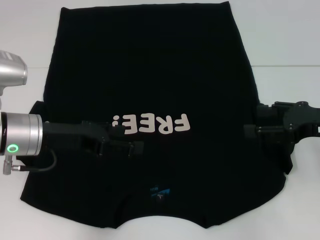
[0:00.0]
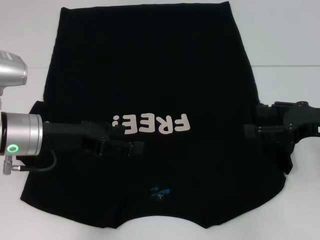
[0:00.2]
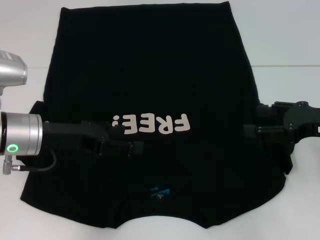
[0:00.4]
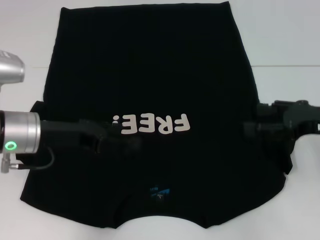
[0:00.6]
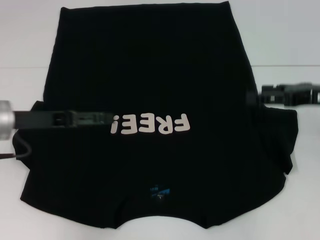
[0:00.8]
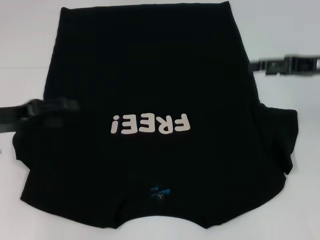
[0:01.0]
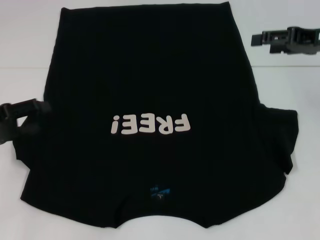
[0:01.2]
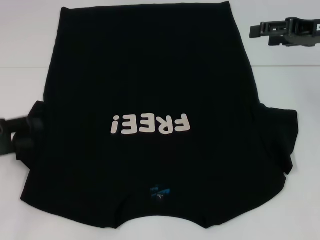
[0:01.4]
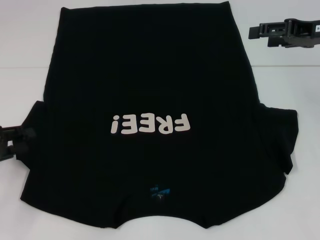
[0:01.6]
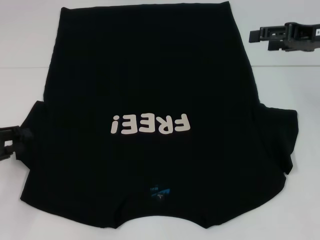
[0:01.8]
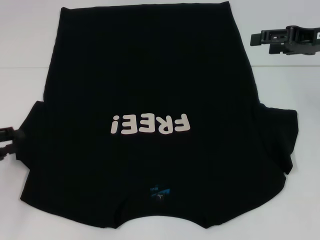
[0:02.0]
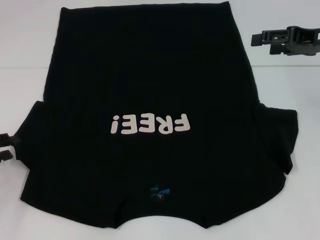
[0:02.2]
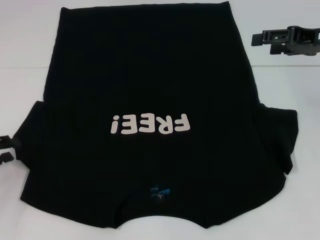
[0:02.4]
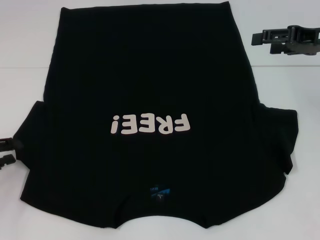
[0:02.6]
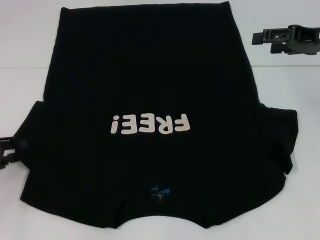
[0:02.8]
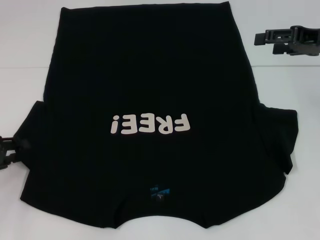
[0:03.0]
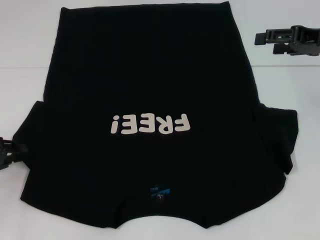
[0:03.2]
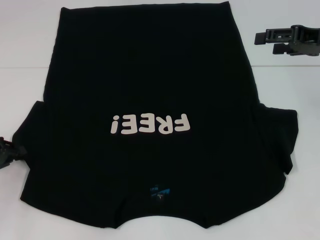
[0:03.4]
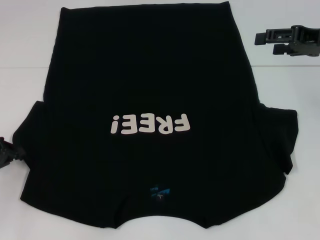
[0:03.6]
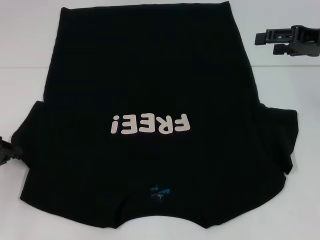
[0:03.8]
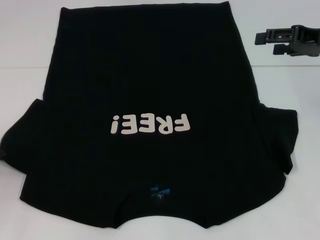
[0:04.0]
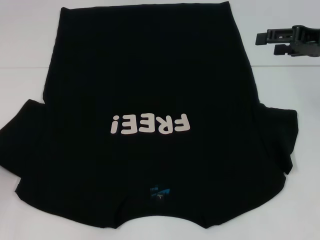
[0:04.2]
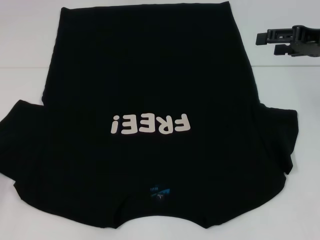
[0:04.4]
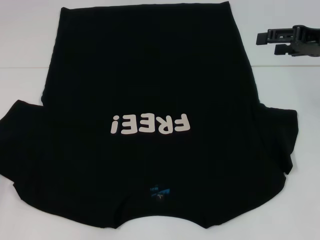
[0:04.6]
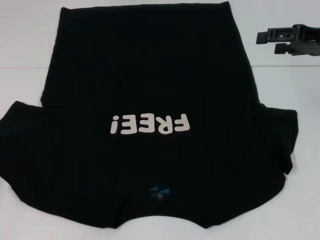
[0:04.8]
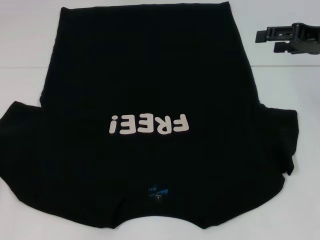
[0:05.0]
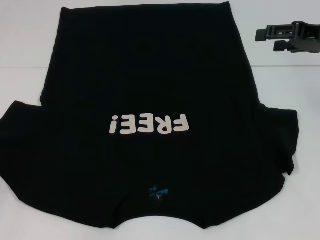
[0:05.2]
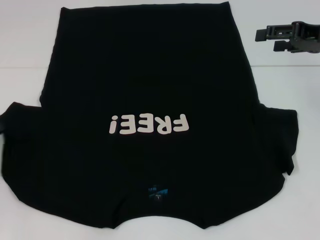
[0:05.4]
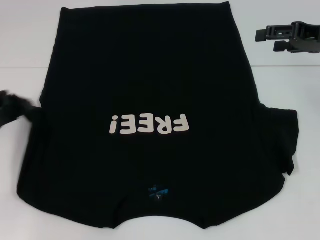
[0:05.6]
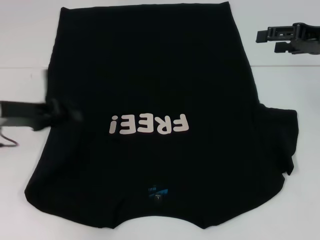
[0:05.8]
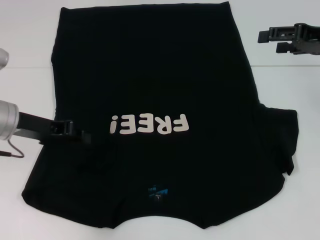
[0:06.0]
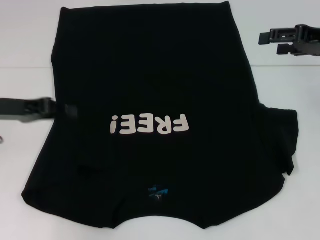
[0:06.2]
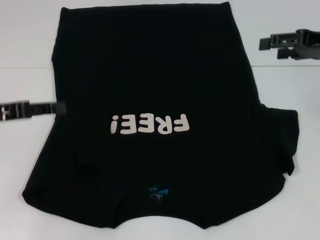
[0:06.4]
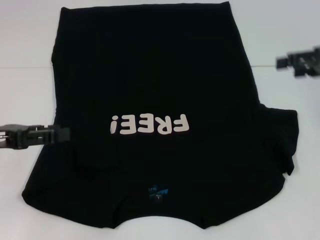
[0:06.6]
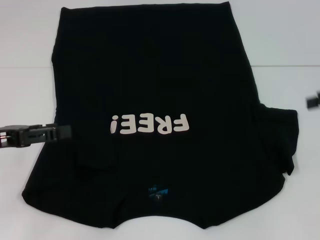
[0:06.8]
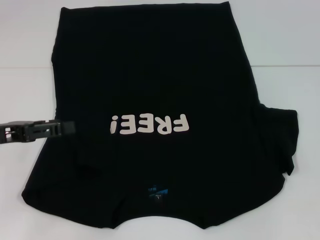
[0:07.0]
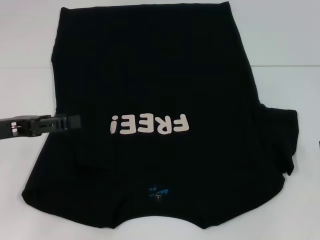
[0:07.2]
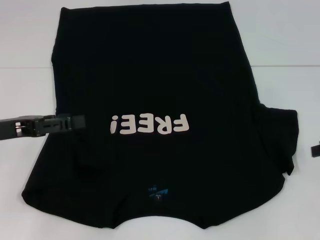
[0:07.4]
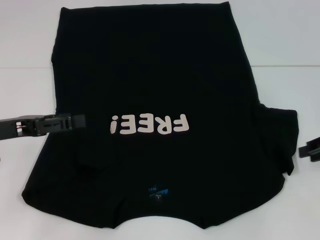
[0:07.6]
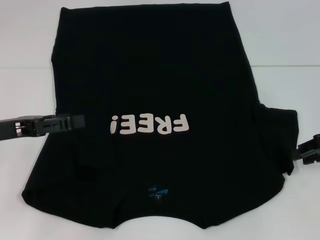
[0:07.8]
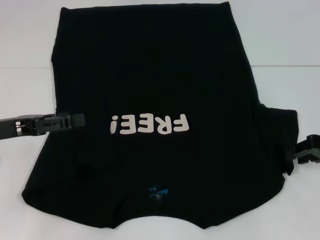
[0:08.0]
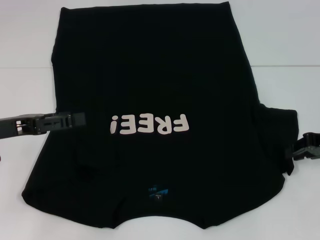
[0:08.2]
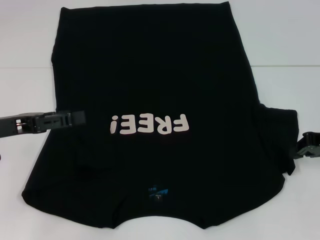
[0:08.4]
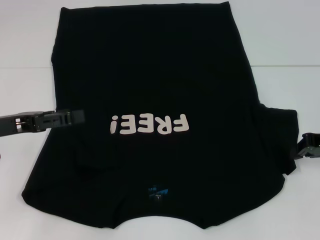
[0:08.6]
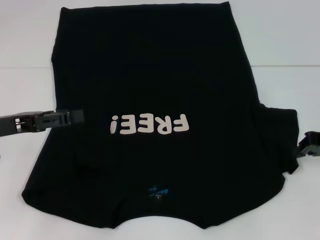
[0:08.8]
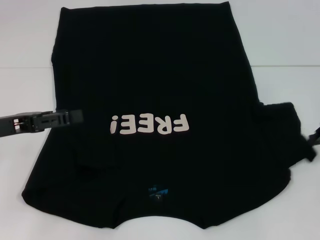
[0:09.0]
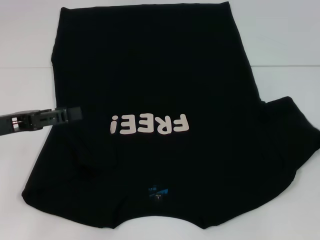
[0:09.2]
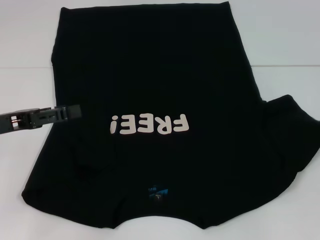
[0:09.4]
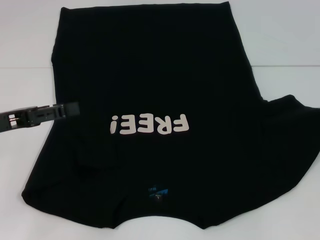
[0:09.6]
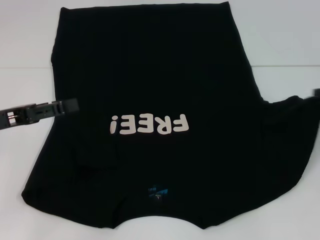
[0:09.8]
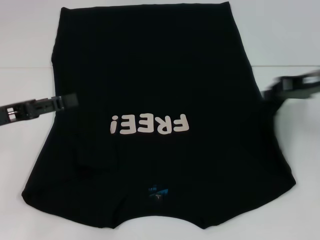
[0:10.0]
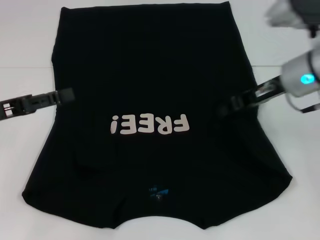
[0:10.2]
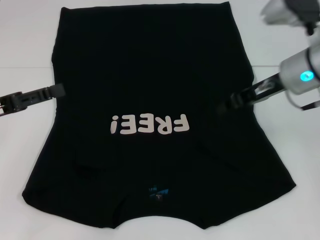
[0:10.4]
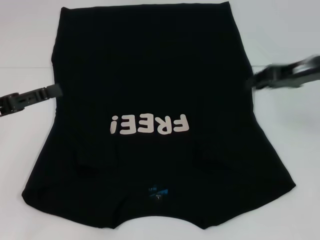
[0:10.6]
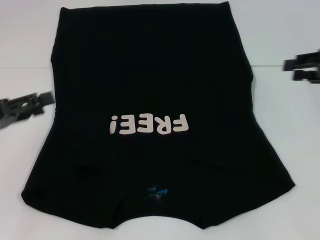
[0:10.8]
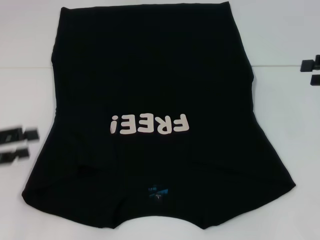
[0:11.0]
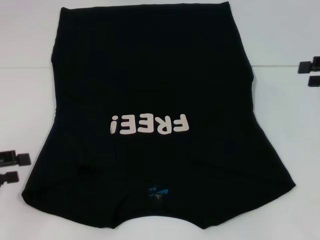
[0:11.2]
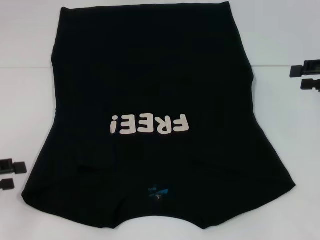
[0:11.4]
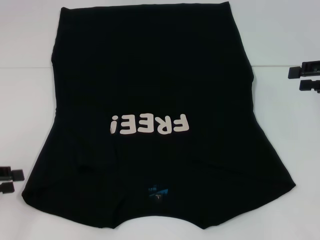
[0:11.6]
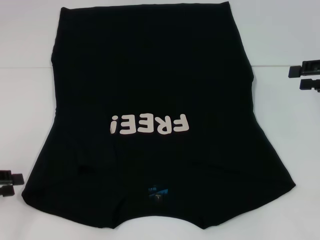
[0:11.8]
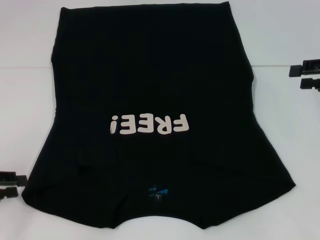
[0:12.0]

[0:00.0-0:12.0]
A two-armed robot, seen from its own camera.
Step, 0:00.0 to 0:06.4: Fold the bottom left sleeve with your left hand.
Step, 0:06.6 to 0:10.2: Fold the bottom right sleeve with your right hand.
0:00.0 to 0:01.6: The left gripper heads to the left, covering approximately 15 cm; the right gripper heads forward and upward, covering some 15 cm.
0:01.6 to 0:03.0: There are only small adjustments of the grippers.
0:03.0 to 0:04.4: The left gripper closes up.
0:04.4 to 0:06.0: The left gripper goes about 15 cm to the right, forward and upward.
0:06.0 to 0:07.6: The right gripper moves downward and backward, some 10 cm, and closes, while the left gripper shifts roughly 5 cm backward, and opens.
0:07.6 to 0:09.0: The right gripper closes up.
0:09.0 to 0:10.4: The right gripper moves to the left, roughly 15 cm.
0:10.4 to 0:12.0: The right gripper is displaced to the right by about 15 cm, and opens. The left gripper goes roughly 5 cm downward, and closes up.

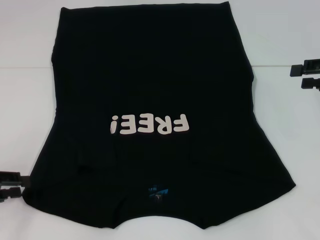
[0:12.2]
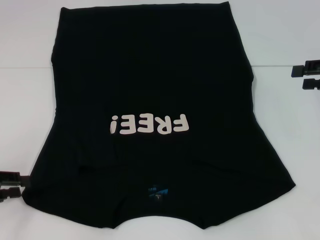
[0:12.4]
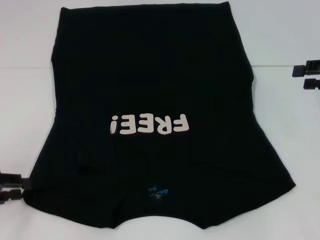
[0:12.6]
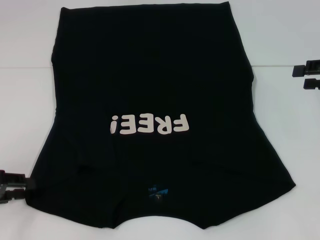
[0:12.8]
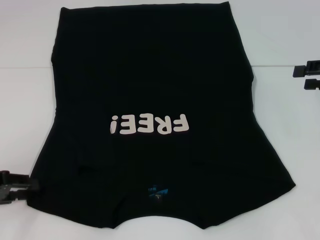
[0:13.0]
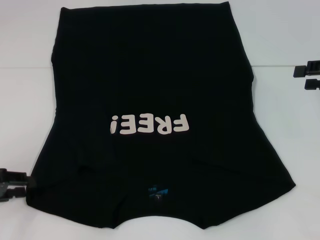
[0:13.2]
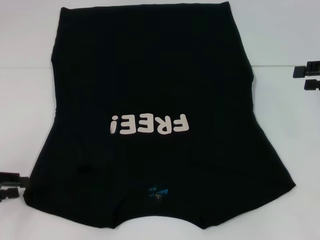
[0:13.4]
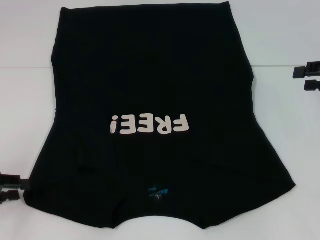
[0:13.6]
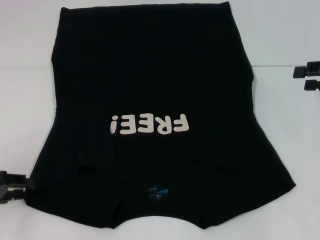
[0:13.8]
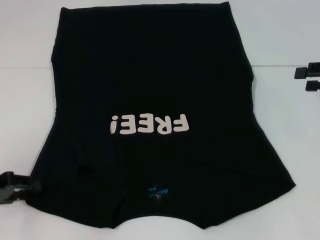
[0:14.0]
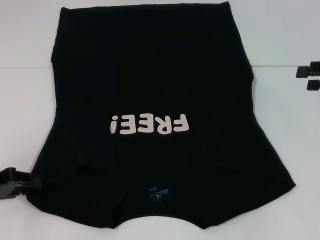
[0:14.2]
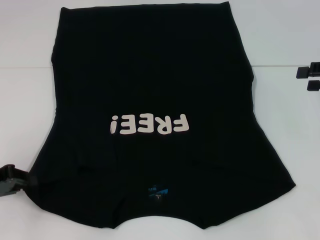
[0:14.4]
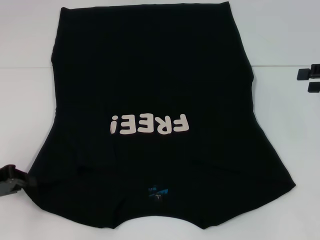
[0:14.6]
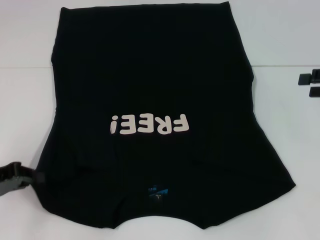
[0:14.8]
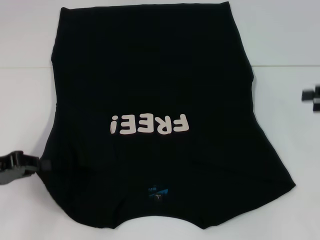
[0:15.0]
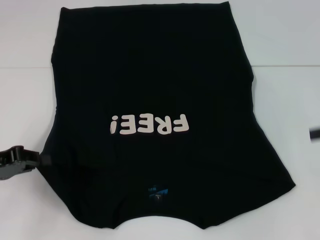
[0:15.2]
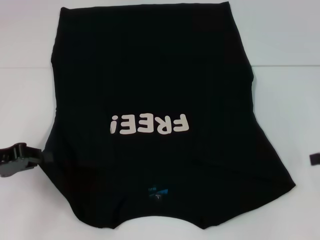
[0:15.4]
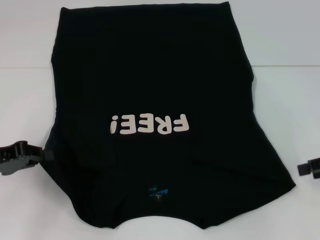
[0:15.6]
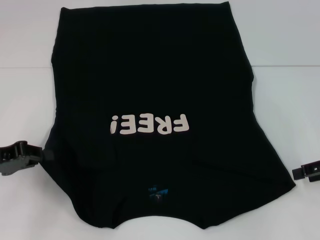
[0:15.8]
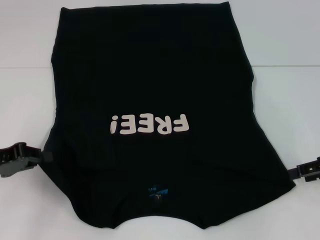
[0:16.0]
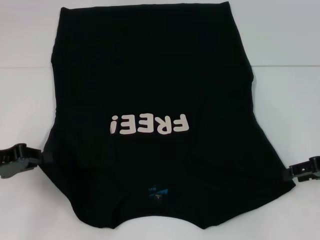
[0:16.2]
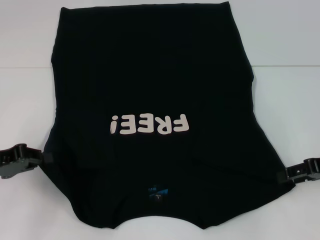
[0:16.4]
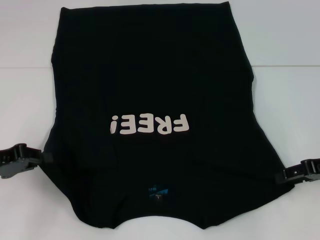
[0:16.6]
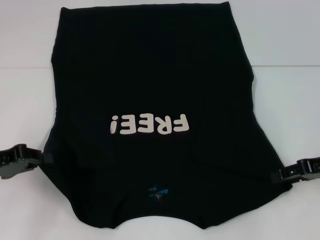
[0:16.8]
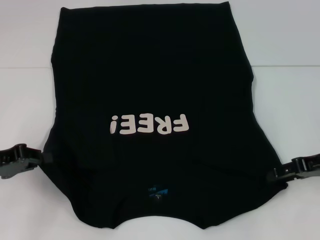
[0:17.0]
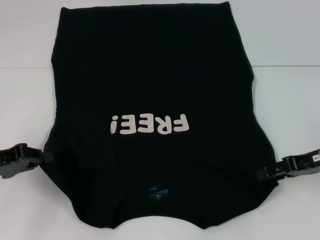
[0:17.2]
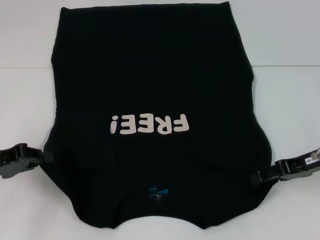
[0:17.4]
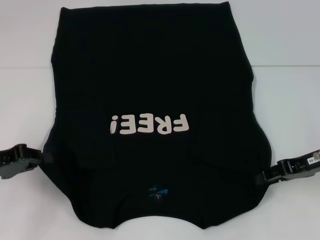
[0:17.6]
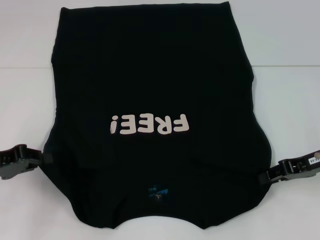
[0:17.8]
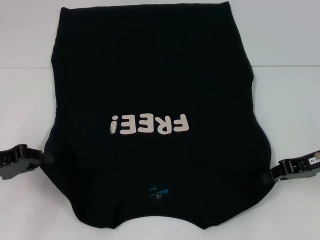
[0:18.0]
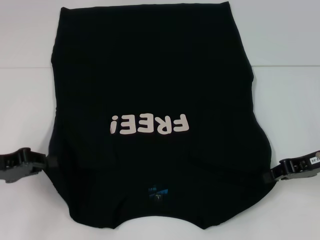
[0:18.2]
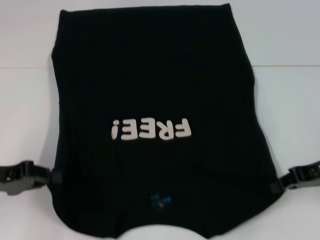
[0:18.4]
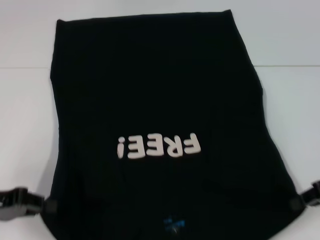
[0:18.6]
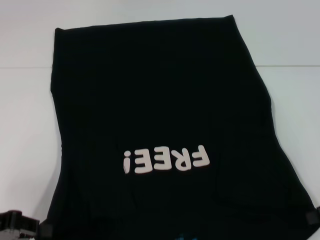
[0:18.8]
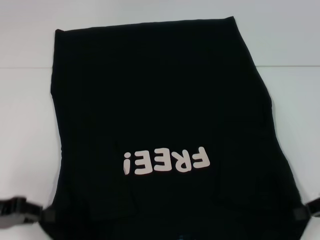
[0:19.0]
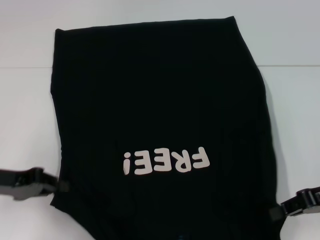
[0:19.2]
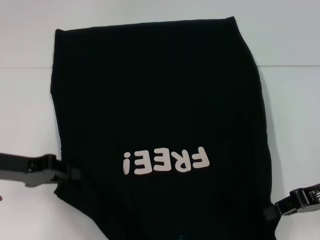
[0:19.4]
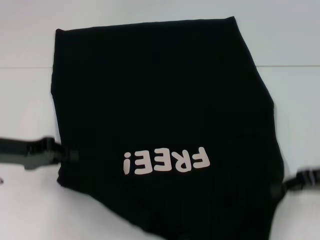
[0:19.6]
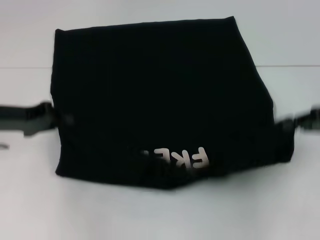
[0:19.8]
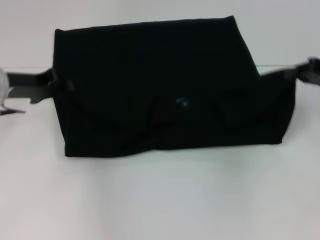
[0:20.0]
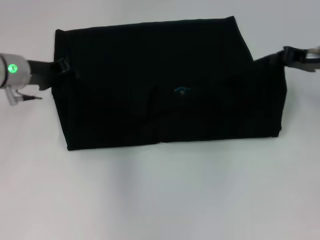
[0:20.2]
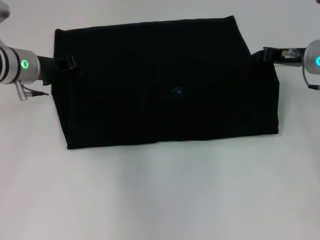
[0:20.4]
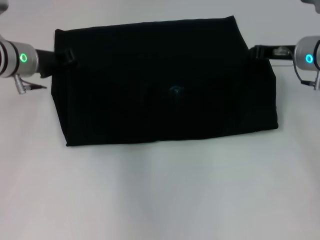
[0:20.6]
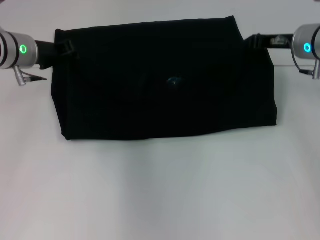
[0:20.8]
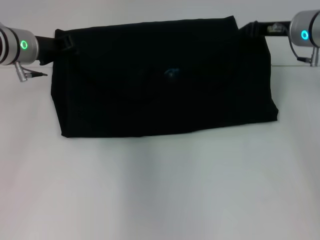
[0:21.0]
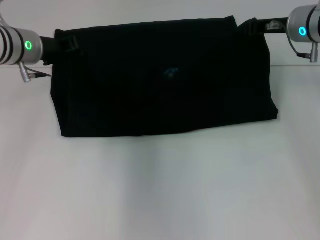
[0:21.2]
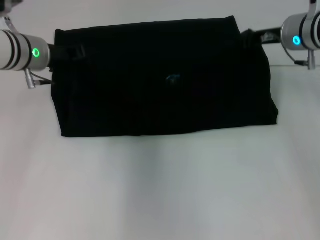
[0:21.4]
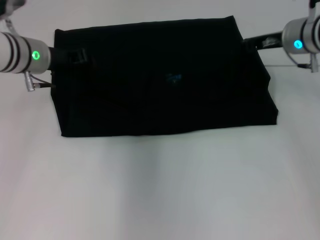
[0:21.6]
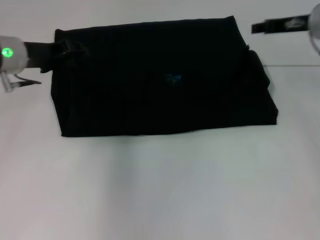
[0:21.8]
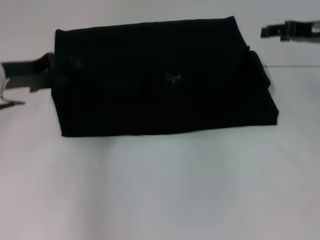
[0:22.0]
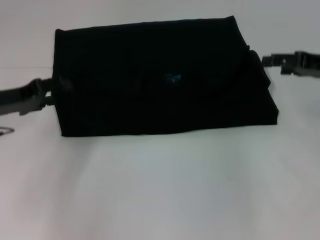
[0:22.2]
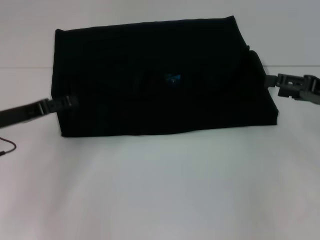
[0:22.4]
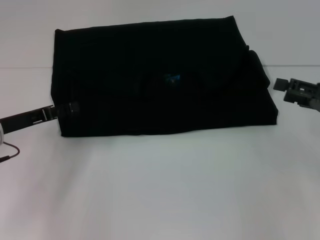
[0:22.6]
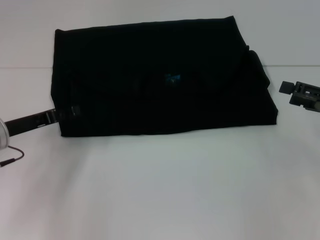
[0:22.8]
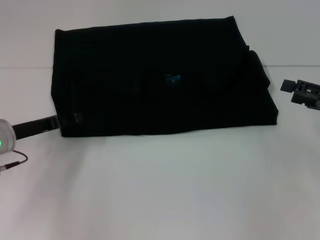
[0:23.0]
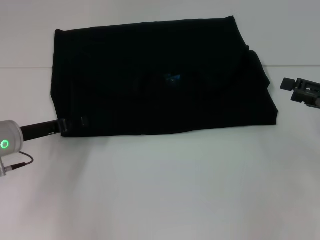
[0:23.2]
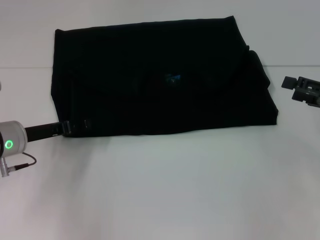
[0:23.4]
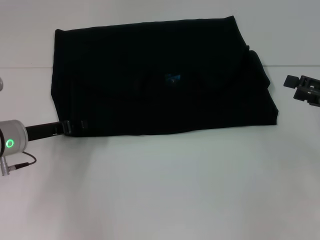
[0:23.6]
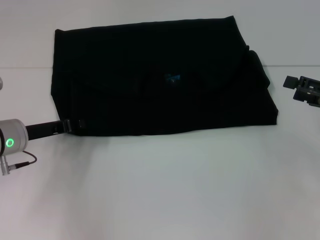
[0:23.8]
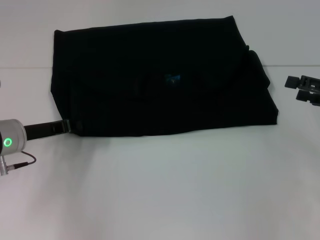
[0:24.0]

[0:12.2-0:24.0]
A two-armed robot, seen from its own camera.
Step, 0:12.2 to 0:15.4: Grab the bottom left corner with your left hand.
Step, 0:15.6 to 0:18.2: Grab the bottom right corner with your right hand.
Step, 0:18.4 to 0:21.6: Fold the clothes with your left hand.
Step, 0:18.4 to 0:21.6: Fold the clothes with your right hand.
0:12.2 to 0:13.6: The grippers make only small movements.
0:13.6 to 0:15.2: The right gripper shifts by some 5 cm, while the left gripper closes up.
0:15.2 to 0:16.6: The right gripper moves to the left and downward, about 10 cm.
0:16.6 to 0:18.2: The right gripper closes its fingers.
0:18.2 to 0:19.6: The left gripper ends up approximately 5 cm from where it was.
0:19.6 to 0:21.0: The right gripper is displaced forward and to the left by about 20 cm. The left gripper moves forward and to the right, some 15 cm.
0:21.0 to 0:22.6: The right gripper moves backward and to the right, approximately 20 cm, and opens up; the left gripper heads backward, downward and to the left, covering approximately 15 cm, and opens its fingers.
0:22.6 to 0:24.0: The left gripper closes its fingers.
